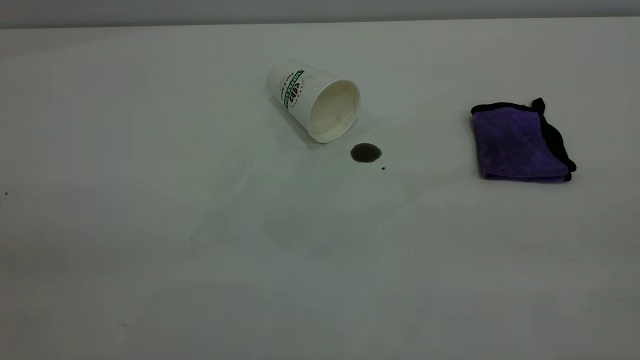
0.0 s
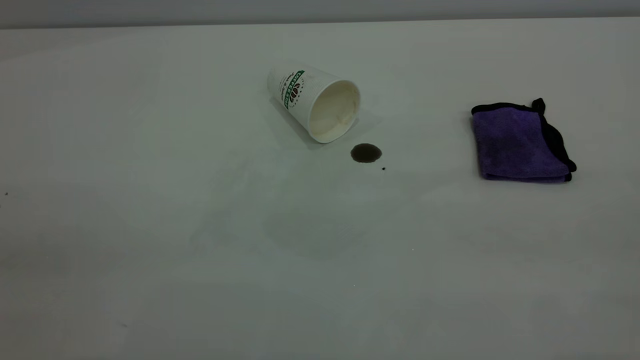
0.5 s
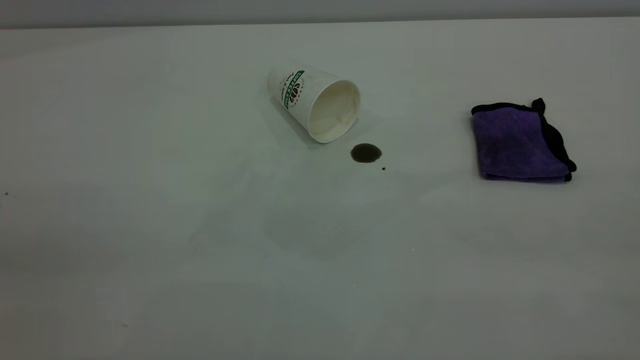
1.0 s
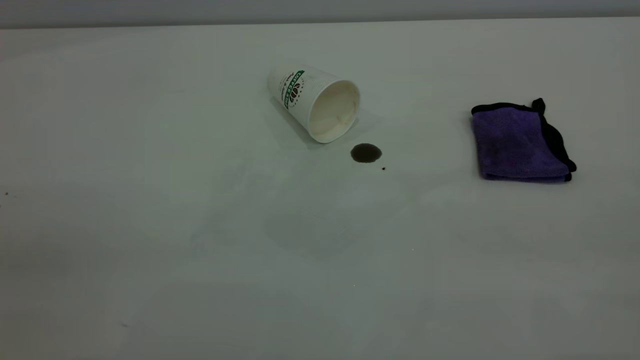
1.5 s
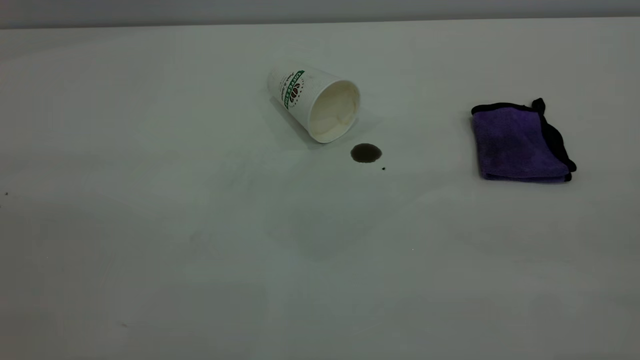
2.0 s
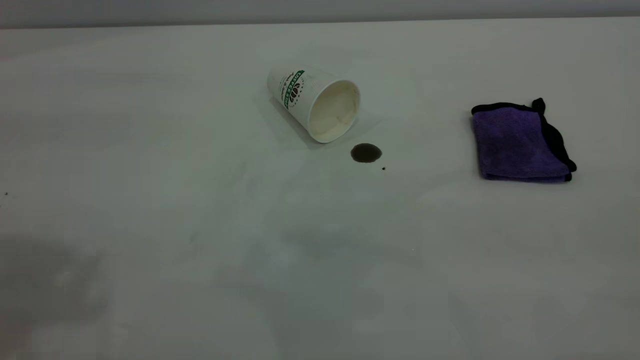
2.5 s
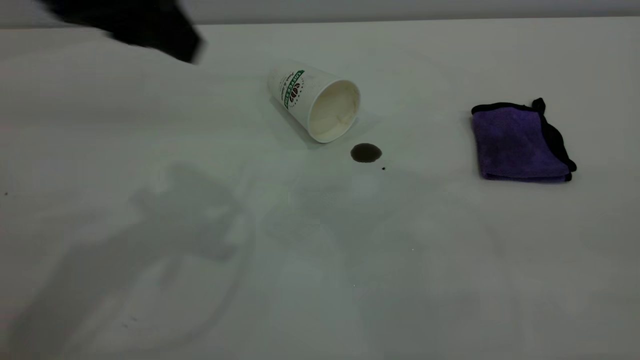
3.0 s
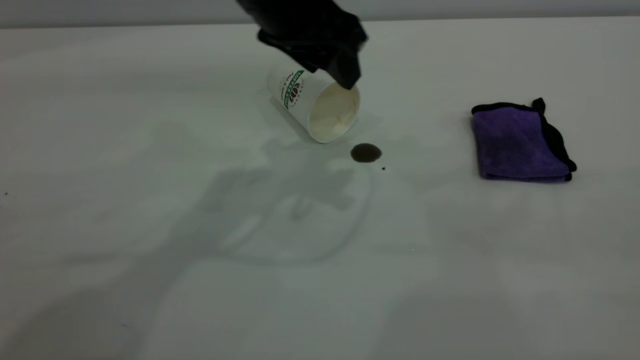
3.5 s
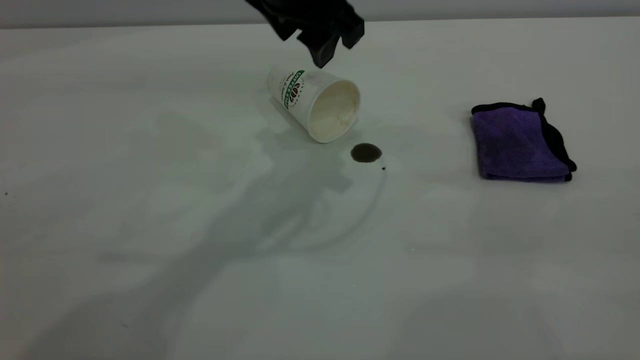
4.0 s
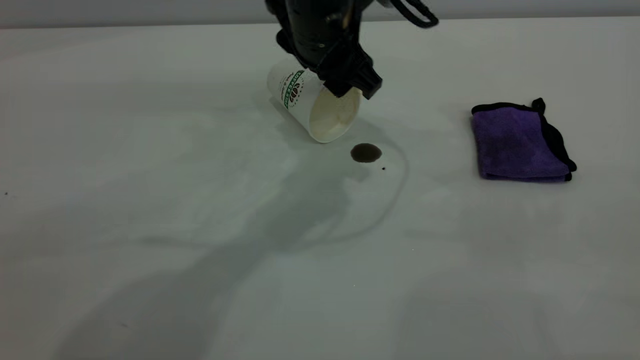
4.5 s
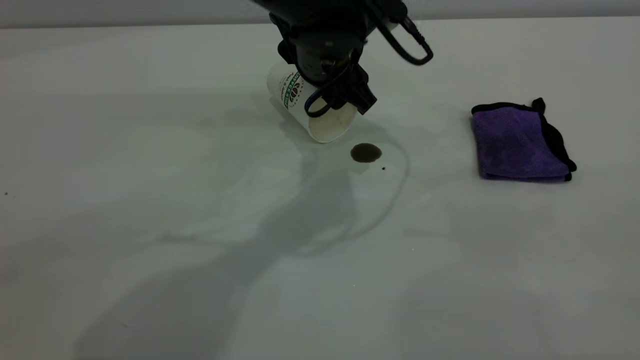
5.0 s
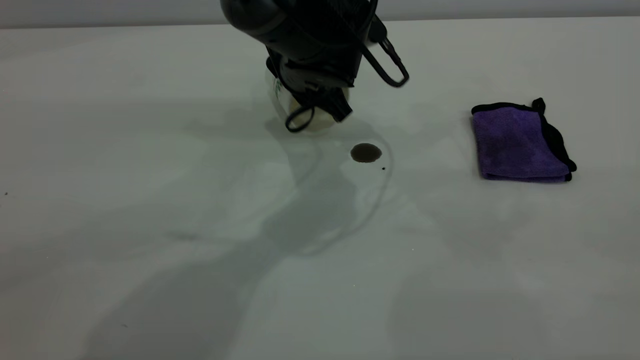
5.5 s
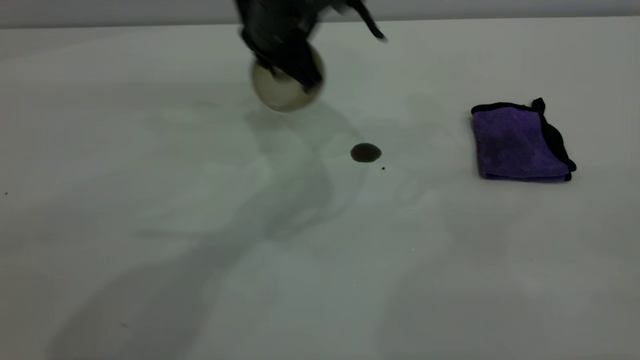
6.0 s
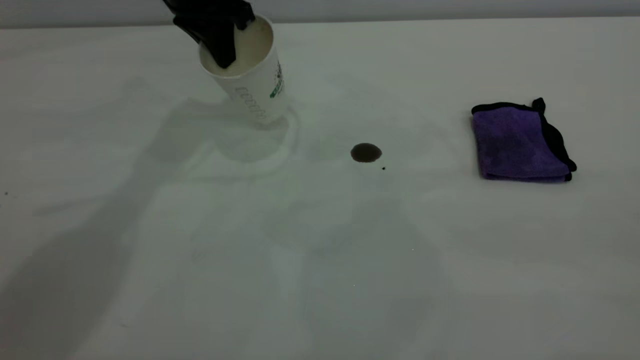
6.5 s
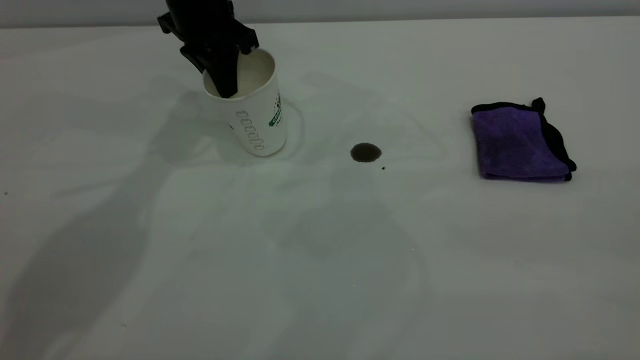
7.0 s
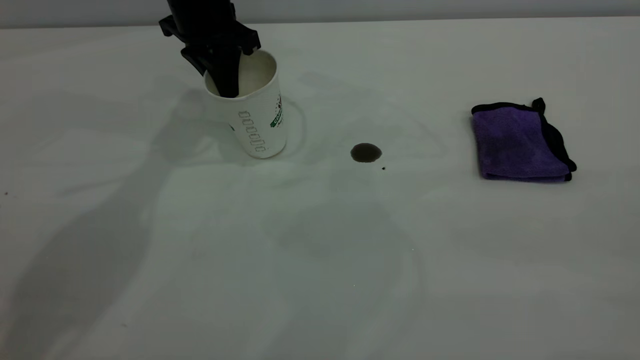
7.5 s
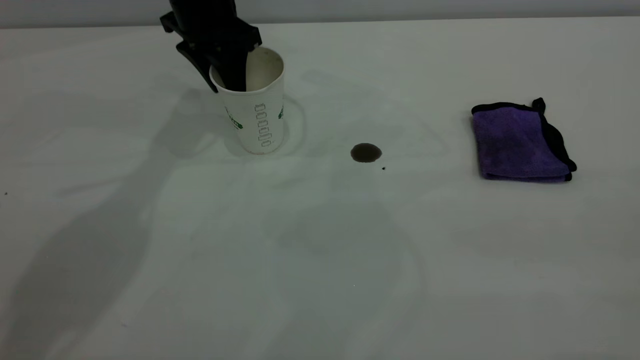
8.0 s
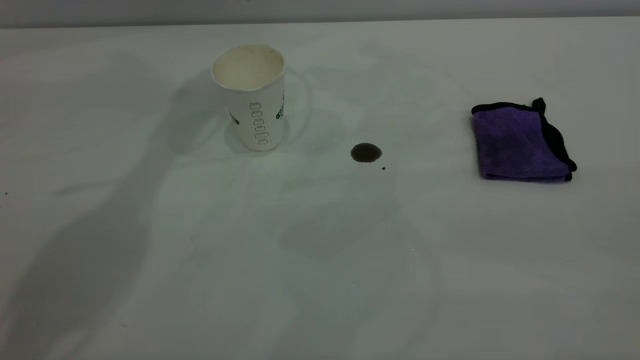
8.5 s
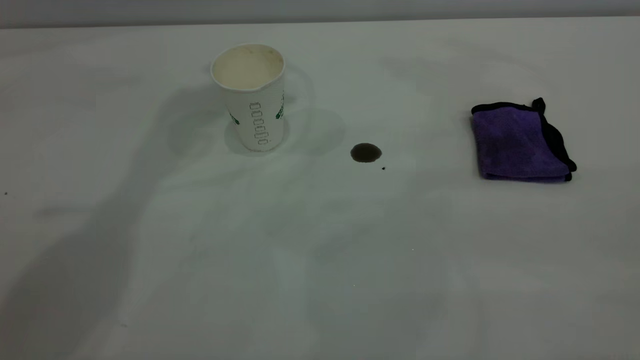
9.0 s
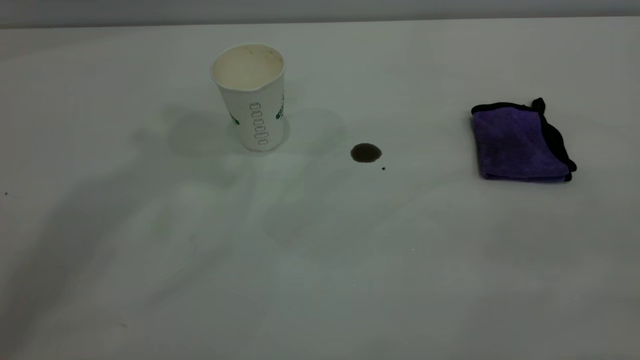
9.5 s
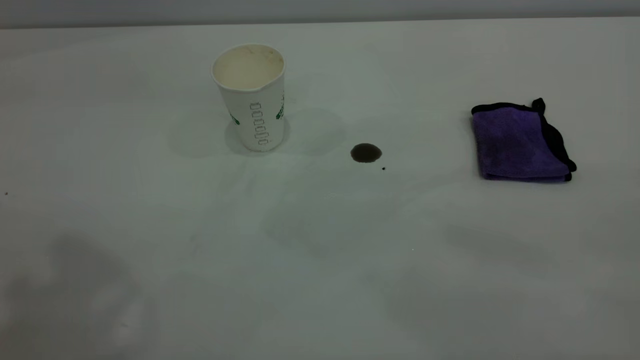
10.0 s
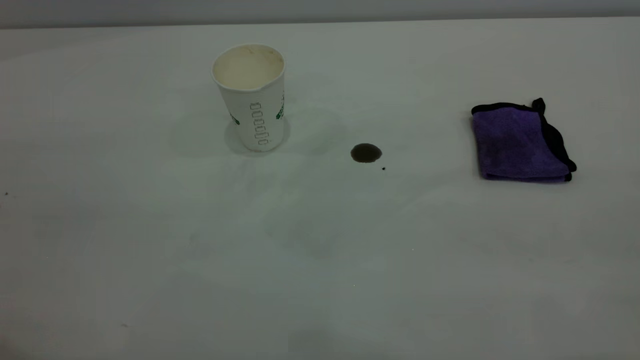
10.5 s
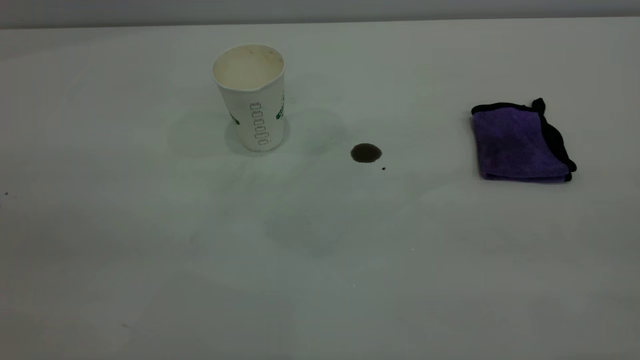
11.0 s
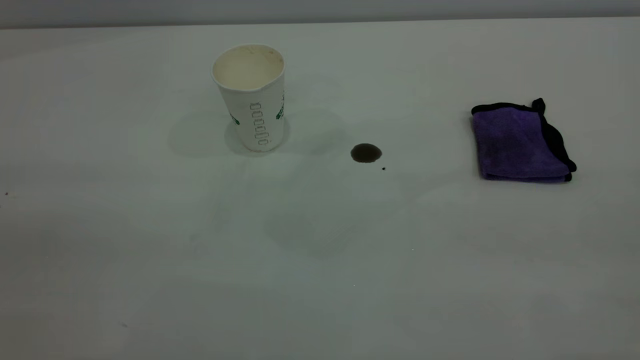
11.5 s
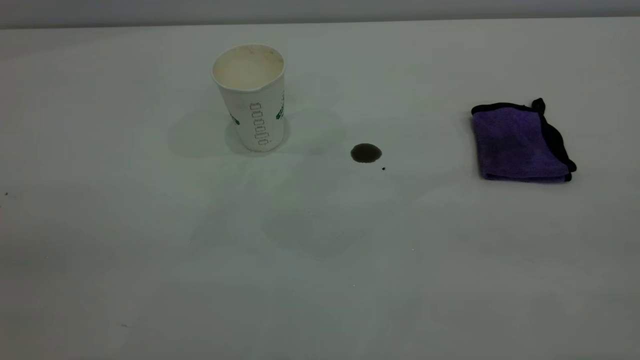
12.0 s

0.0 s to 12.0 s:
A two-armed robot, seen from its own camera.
Task of the whole recording: the left gripper pick up the fallen cup and place it upright, the right gripper grasp the purple rag and wipe the coffee stain on the table, the right gripper put the purple rag back in its original position.
Step, 0.0 to 8.0 s: Stand the paper cup upright.
2.0 to 4.0 s: The left gripper travels forward, to the right and downward by some 50 cm.
4.0 to 6.0 s: The left gripper shifts about 5 cm downward, and closes up.
6.0 to 8.0 s: The left gripper is displaced to the left and forward by approximately 10 cm, and opens.
8.0 to 10.0 s: The left gripper moves backward and upward, about 50 cm.

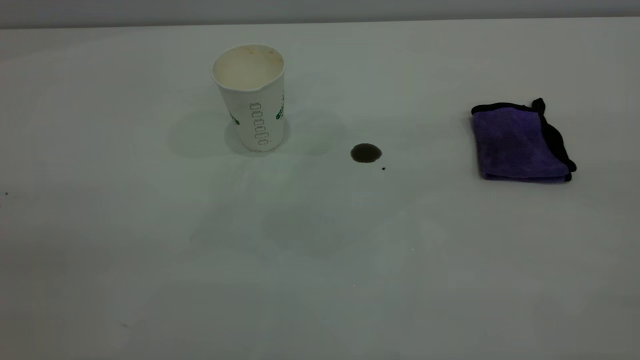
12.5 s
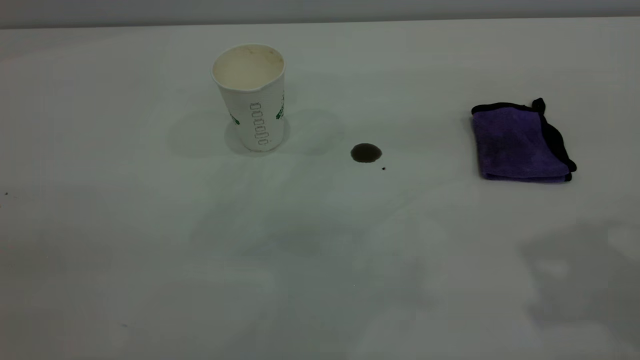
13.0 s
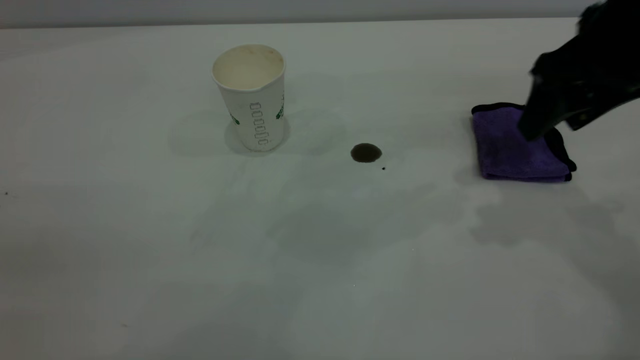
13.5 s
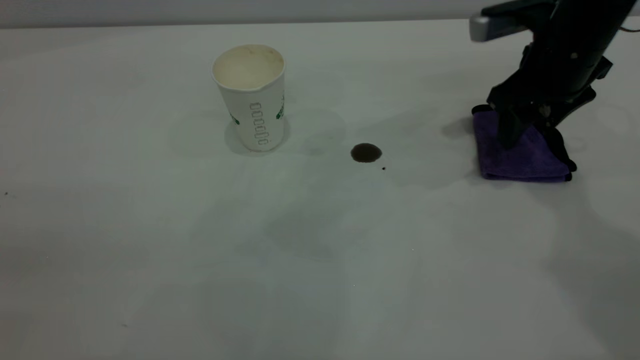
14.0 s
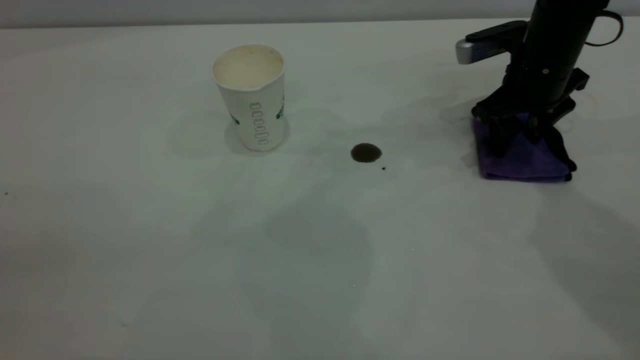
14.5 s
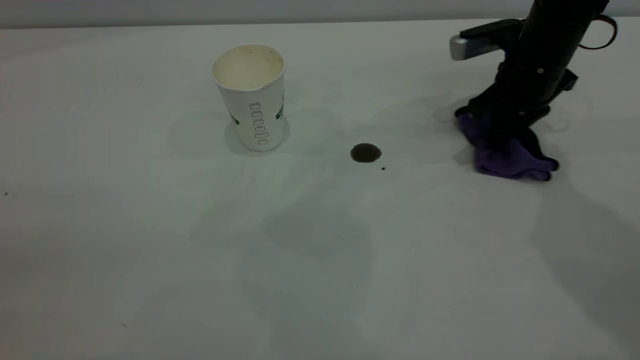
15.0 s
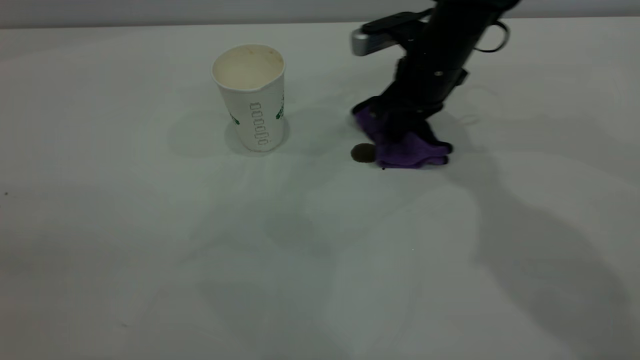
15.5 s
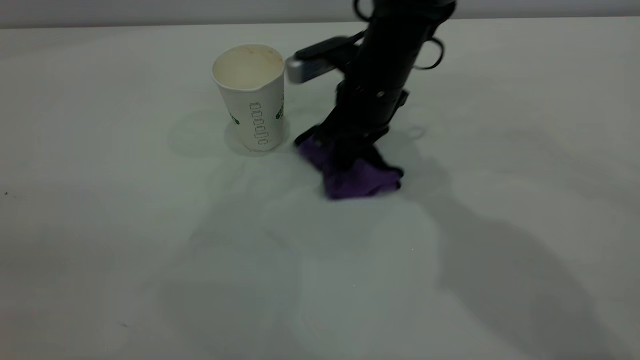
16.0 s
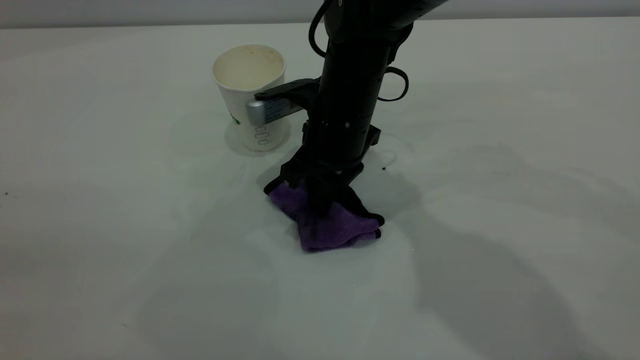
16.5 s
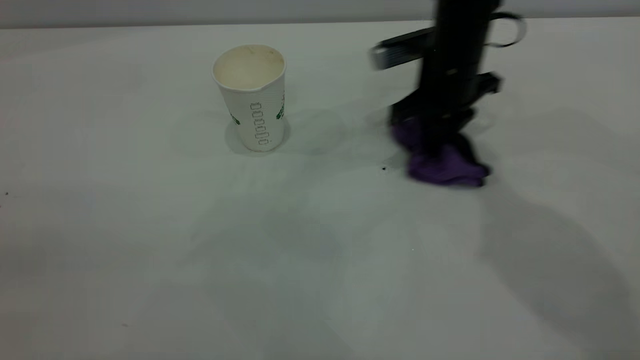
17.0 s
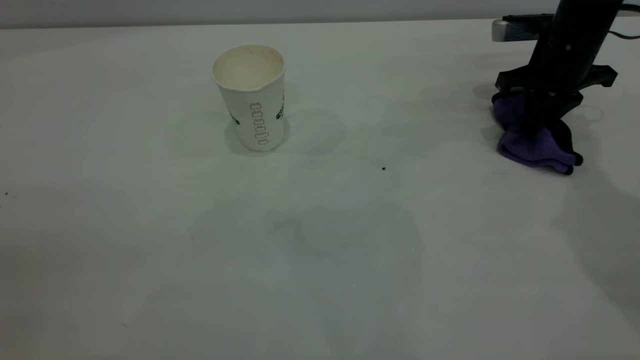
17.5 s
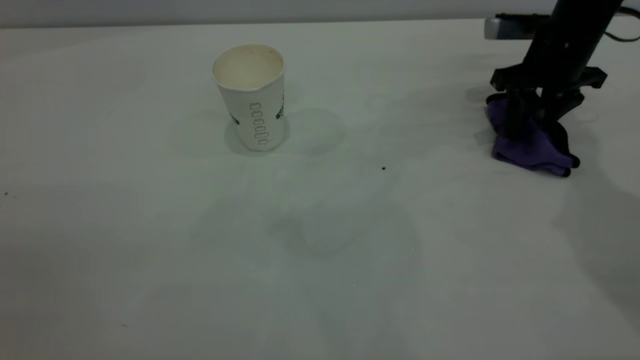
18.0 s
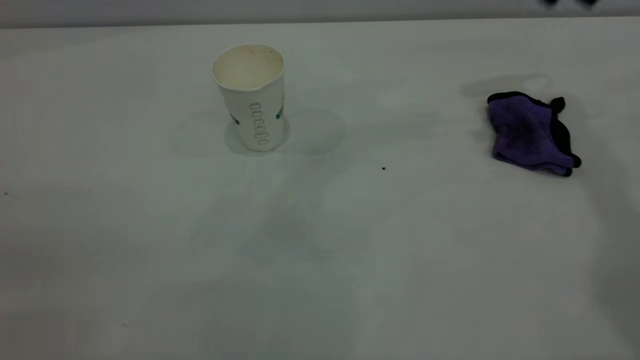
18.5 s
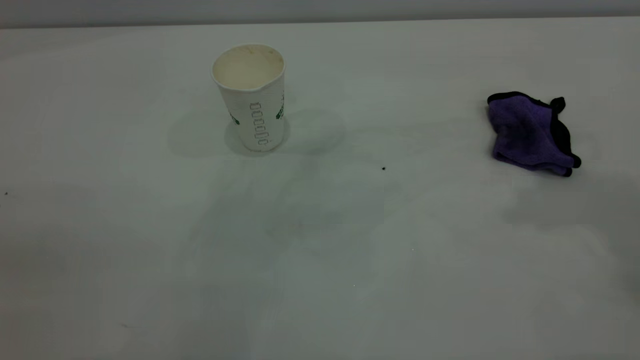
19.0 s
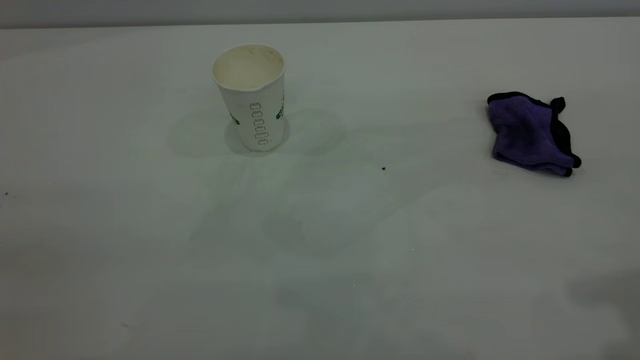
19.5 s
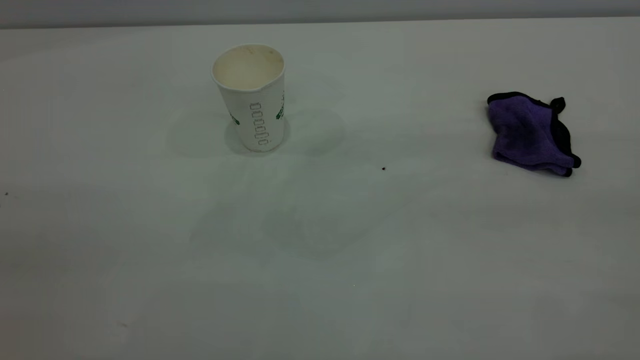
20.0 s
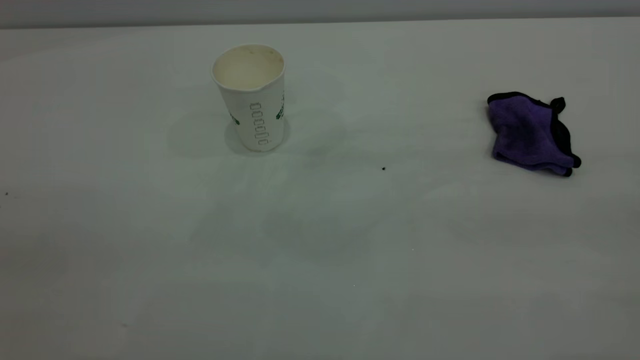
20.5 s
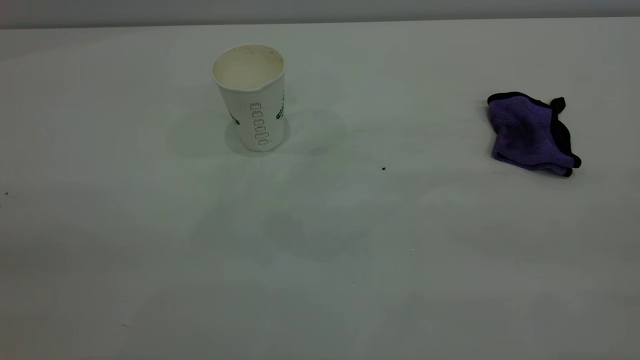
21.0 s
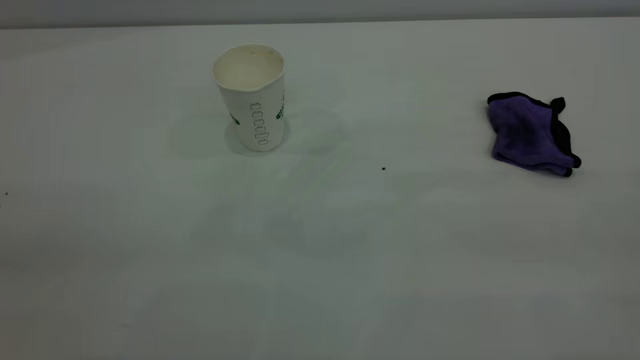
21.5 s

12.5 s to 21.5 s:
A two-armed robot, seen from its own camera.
Task of the whole recording: the left gripper pick up the fallen cup and place it upright, the right gripper grasp the purple rag and wipe the coffee stain on the table, the right gripper put the purple rag back in its original position.
Step, 12.5 to 18.0 s: Wipe the stains off the table with a rag.
12.5 to 14.5 s: The right gripper moves forward and downward, approximately 50 cm.
14.5 to 17.0 s: The right gripper moves about 20 cm to the left and comes back, and closes its fingers.
17.0 to 19.5 s: The right gripper moves backward, upward and to the right, approximately 40 cm, and opens its fingers.
